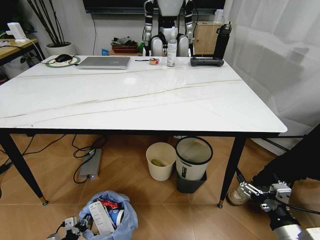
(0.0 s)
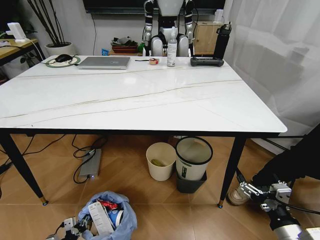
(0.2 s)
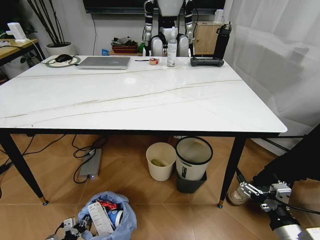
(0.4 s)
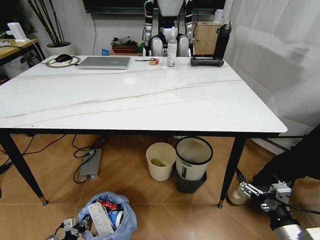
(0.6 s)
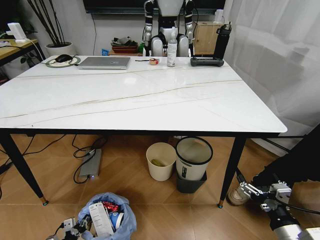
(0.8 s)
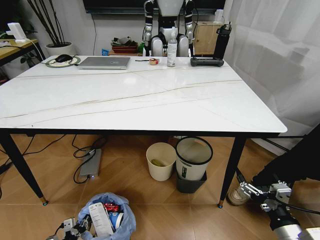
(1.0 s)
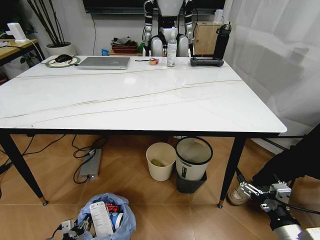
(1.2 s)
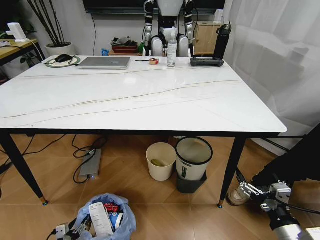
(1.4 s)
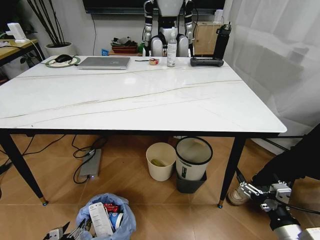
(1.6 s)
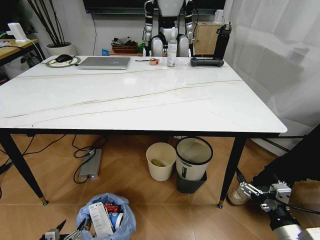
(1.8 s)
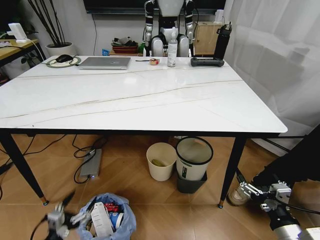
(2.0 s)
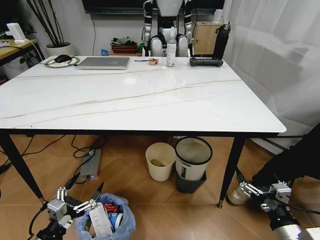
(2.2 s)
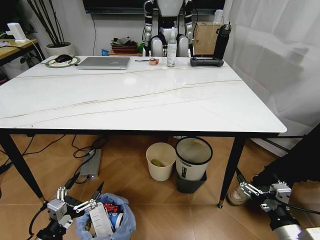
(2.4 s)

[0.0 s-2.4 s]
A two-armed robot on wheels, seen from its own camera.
Task of the whole recording: Pick up the trash bin and place the trash from the table into it.
0.0 to 1.2 s: The left gripper opens its fingers.
1.2 to 2.4 s: The left gripper heads upward, covering some 25 cm, and opens.
